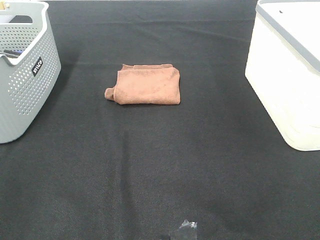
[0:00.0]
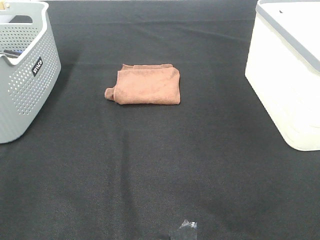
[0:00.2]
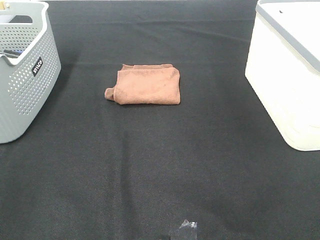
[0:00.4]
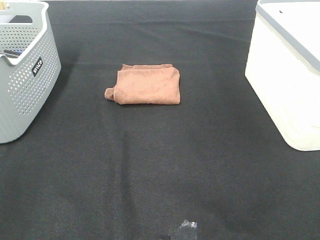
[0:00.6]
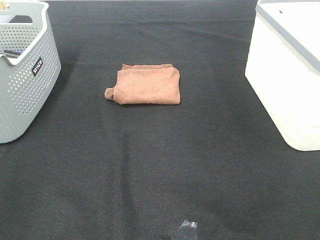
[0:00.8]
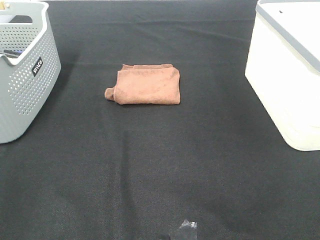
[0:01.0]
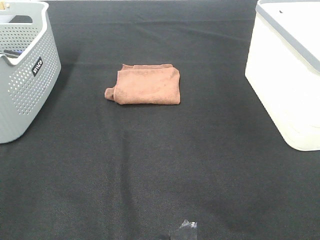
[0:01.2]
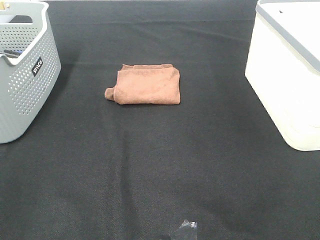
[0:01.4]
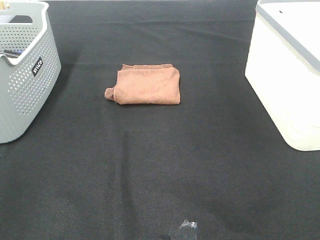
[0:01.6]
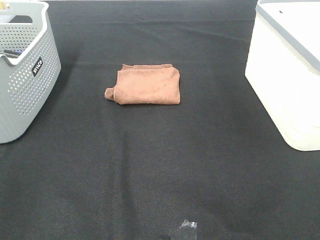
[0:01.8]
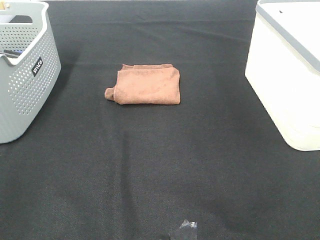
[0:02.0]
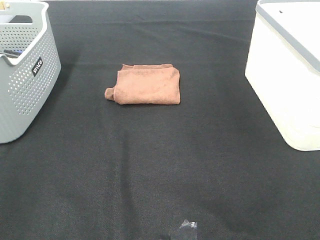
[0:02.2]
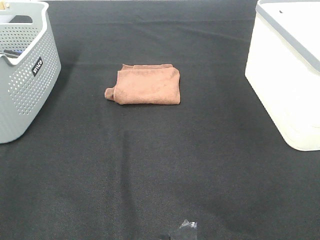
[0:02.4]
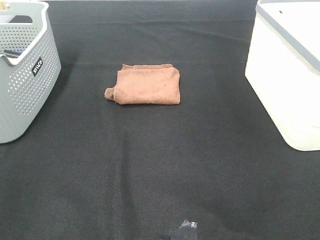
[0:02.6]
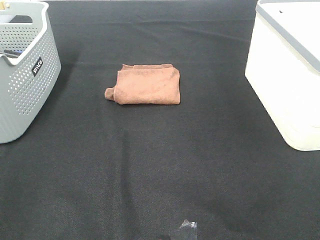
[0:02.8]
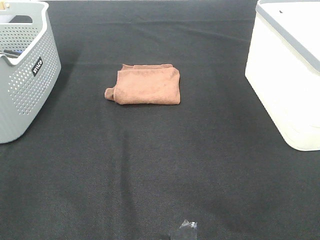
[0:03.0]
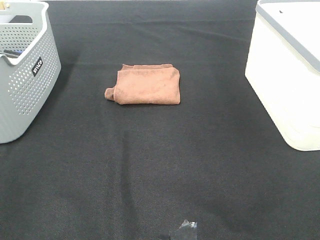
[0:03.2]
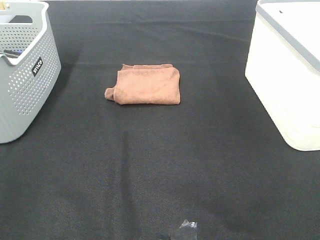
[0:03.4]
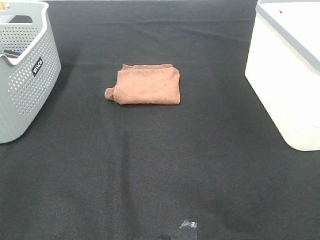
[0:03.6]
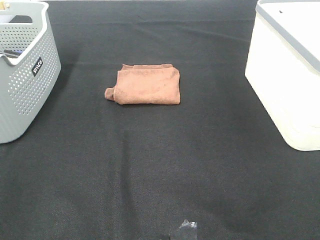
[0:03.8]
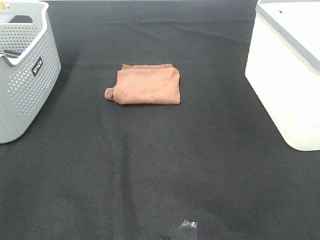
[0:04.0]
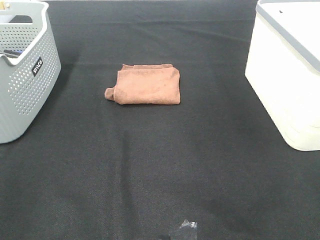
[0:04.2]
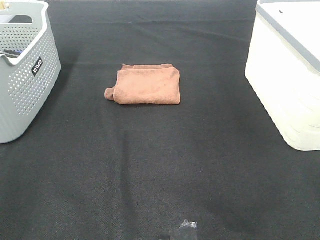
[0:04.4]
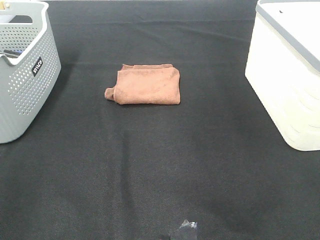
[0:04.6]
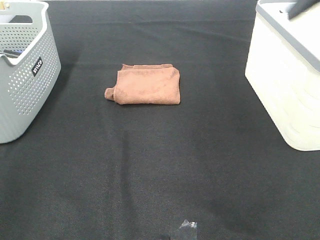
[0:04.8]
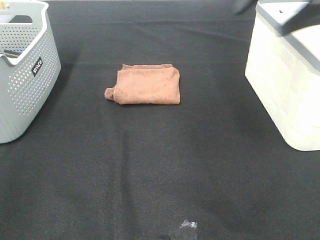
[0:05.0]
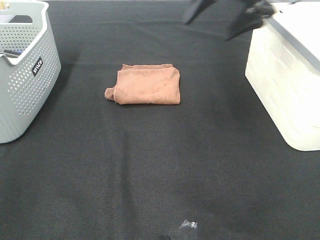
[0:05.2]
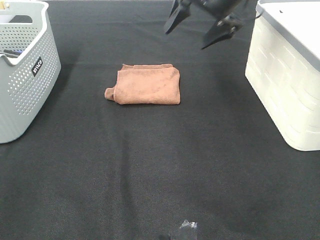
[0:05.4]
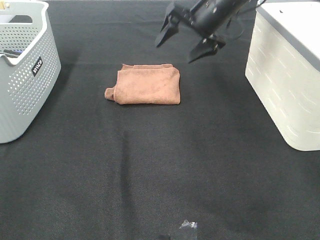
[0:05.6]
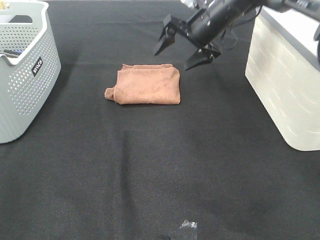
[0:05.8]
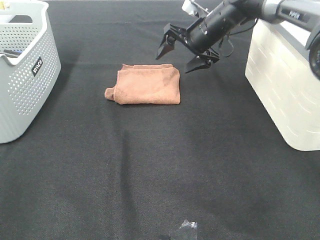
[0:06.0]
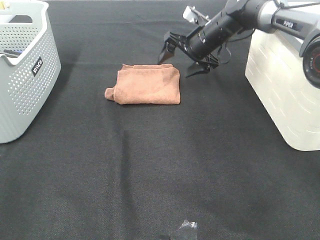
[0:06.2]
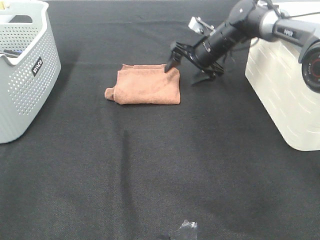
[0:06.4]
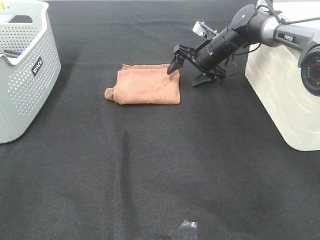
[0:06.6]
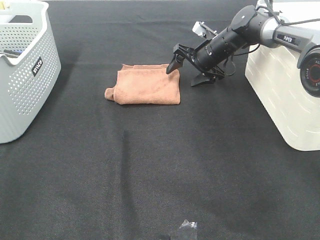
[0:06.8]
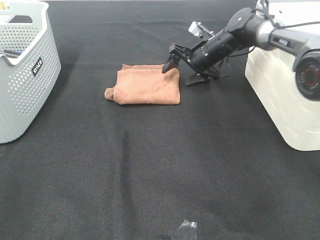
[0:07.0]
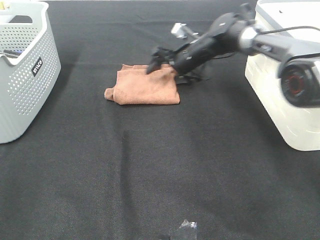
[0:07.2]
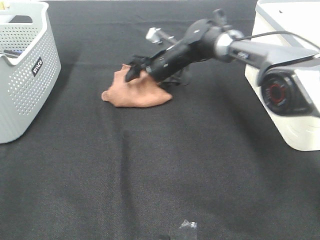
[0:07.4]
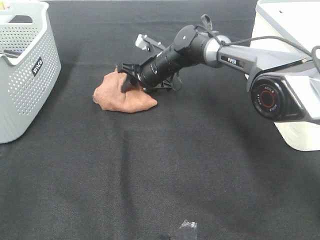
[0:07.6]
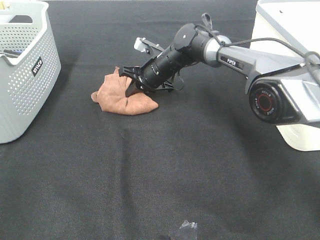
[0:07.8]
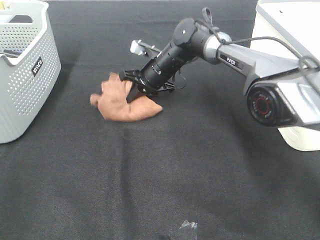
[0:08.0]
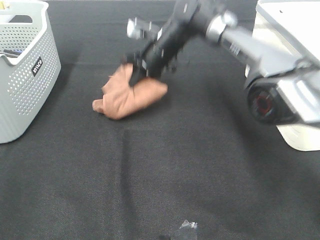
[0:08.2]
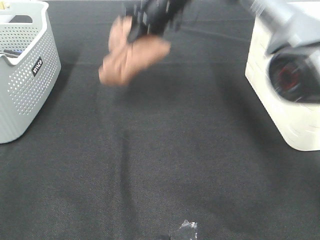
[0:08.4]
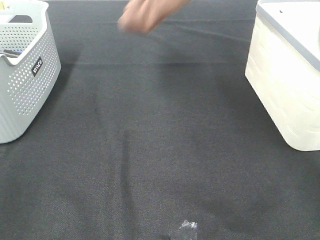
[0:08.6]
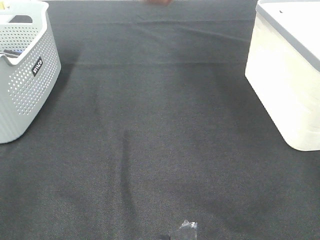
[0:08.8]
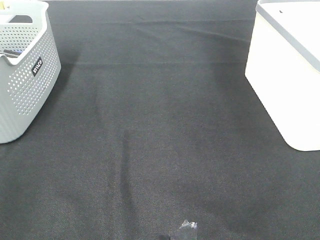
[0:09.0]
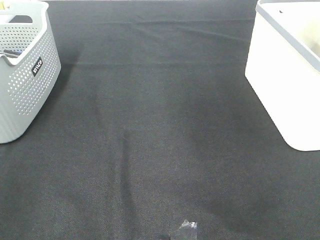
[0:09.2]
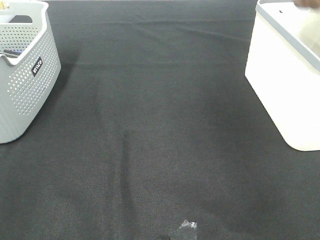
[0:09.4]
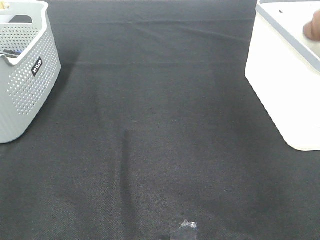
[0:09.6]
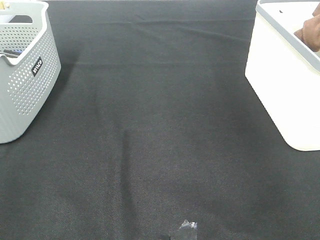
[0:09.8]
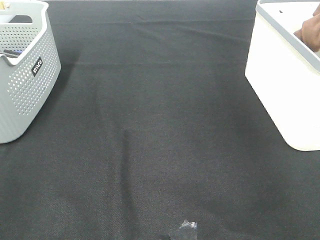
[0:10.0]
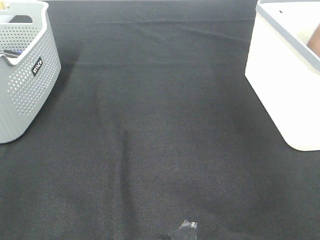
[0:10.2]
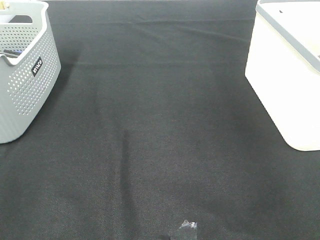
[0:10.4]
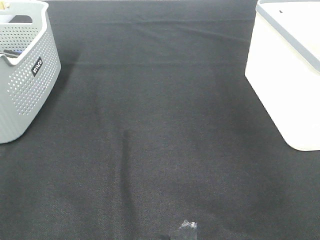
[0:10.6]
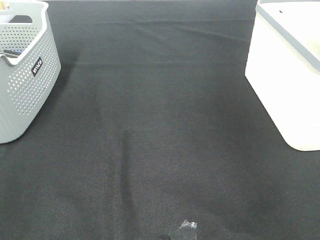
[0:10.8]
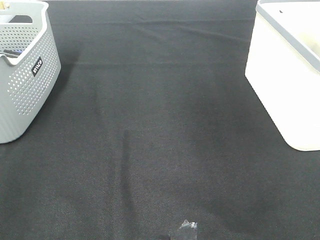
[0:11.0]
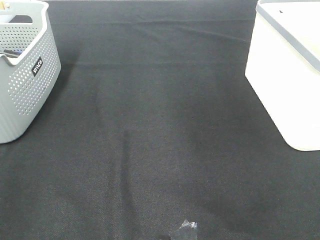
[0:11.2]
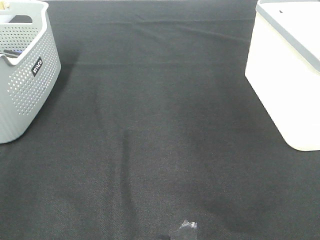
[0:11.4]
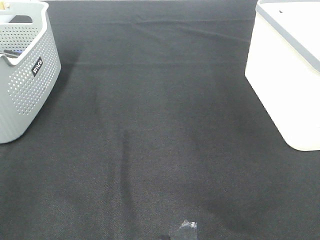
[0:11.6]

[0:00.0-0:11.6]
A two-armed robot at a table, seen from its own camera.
Step, 0:00.0 to 0:07.8: Right hand: grab the folded brown towel.
Step, 0:08.0 to 0:10.4: Right hand: place the brown towel in right basket.
0:00.0 to 0:02.8: Neither gripper changes place.
0:04.4 to 0:05.8: The right gripper goes roughly 40 cm forward, downward and to the left.
0:05.8 to 0:07.2: The right gripper is displaced downward by some 10 cm.
0:07.2 to 0:08.8: The right gripper shifts roughly 35 cm upward, and closes up.
0:08.8 to 0:10.2: The right gripper travels to the right by some 30 cm, and opens up.

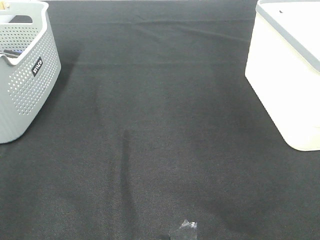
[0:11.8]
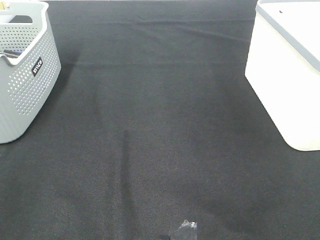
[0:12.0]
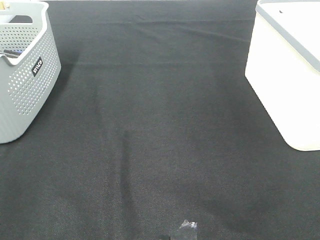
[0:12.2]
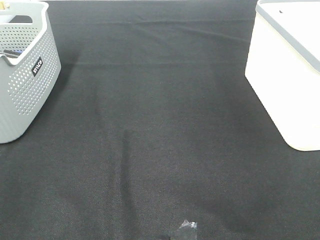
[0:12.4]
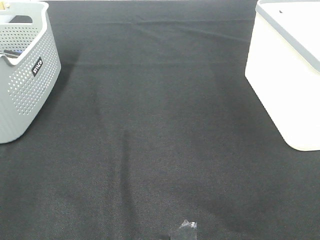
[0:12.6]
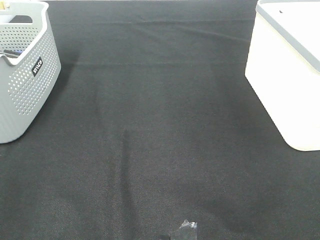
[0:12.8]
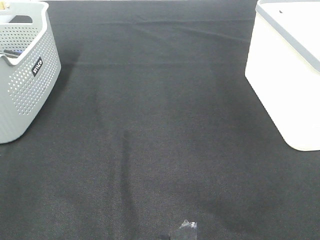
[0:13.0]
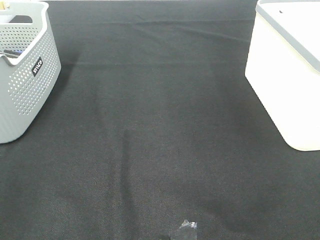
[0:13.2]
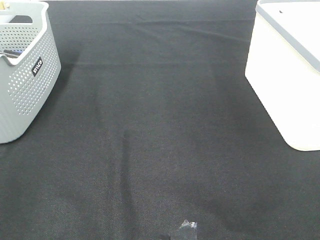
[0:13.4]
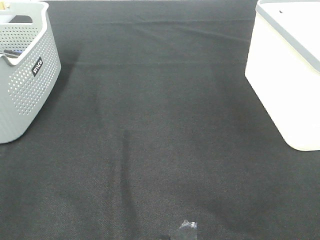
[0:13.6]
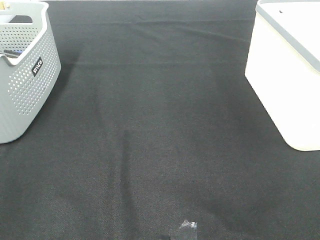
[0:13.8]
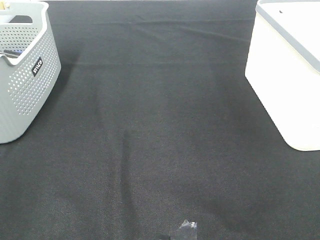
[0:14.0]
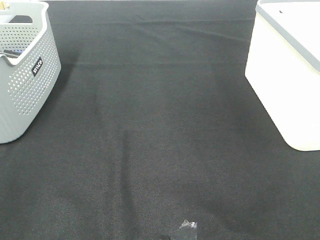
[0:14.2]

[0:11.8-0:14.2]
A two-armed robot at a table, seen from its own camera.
0:13.0 to 0:14.2: Neither gripper changes place.
